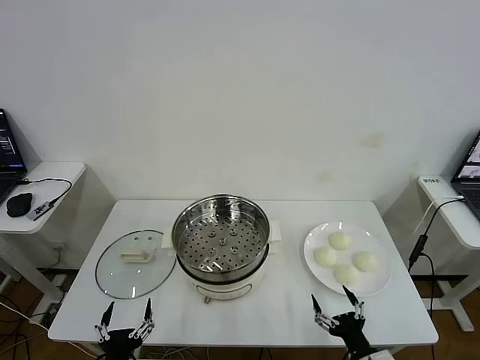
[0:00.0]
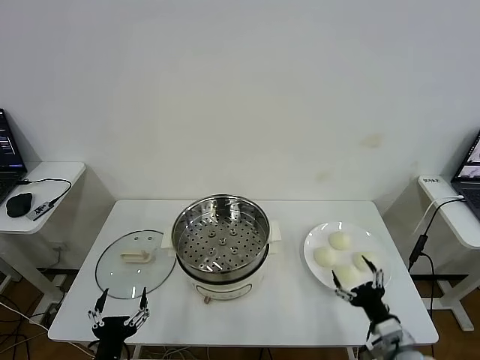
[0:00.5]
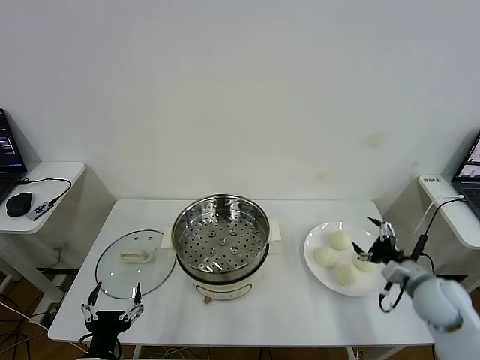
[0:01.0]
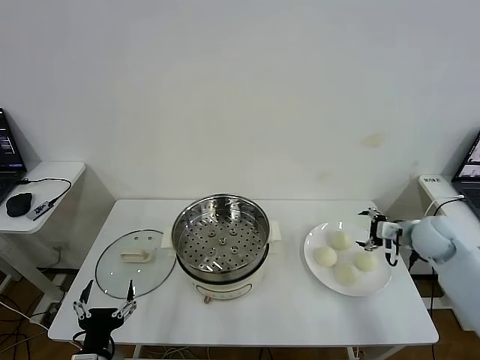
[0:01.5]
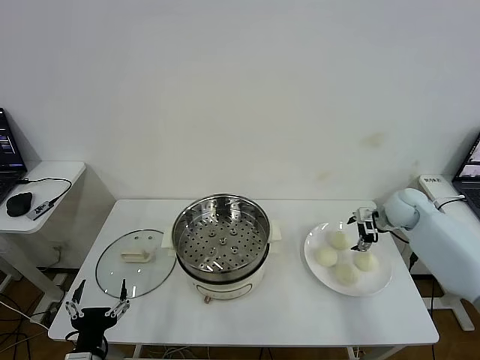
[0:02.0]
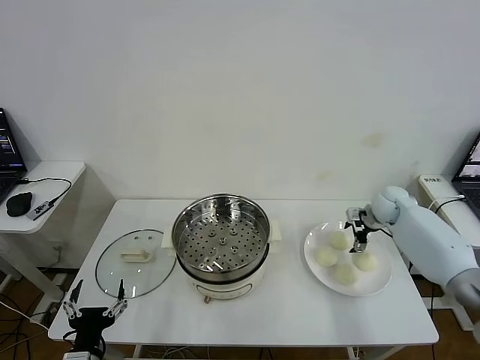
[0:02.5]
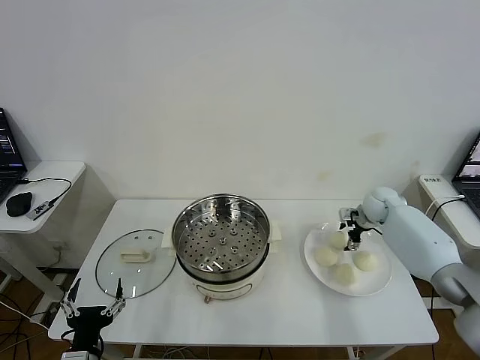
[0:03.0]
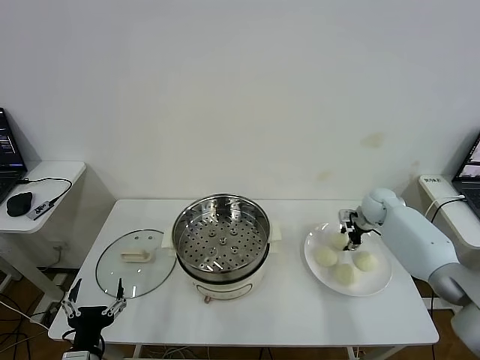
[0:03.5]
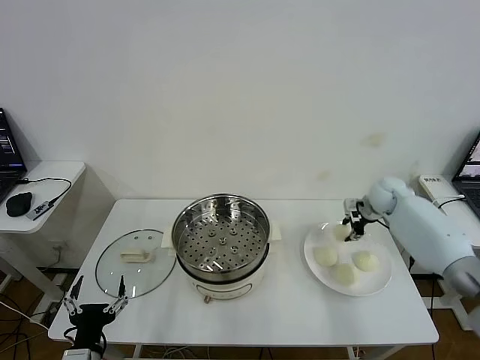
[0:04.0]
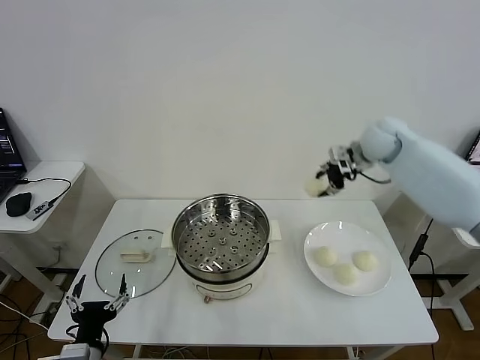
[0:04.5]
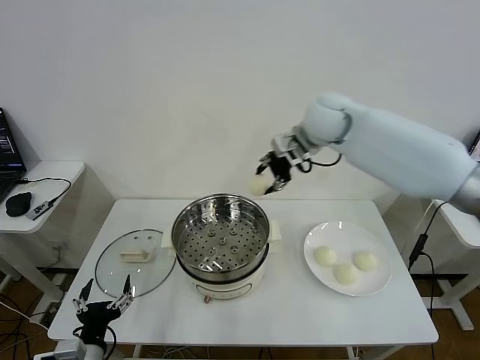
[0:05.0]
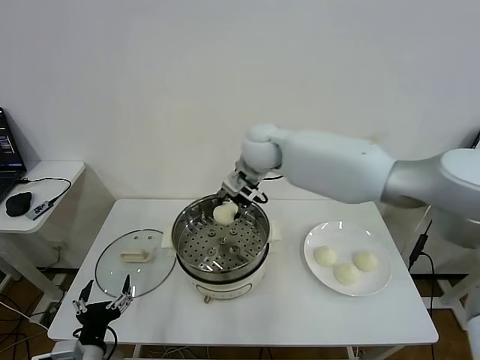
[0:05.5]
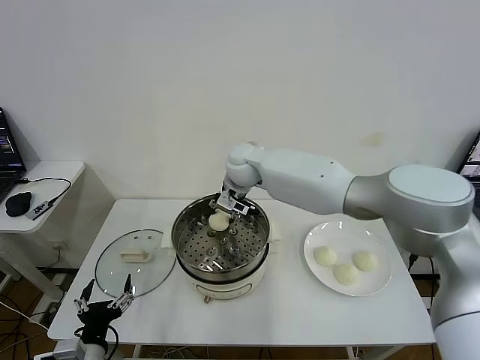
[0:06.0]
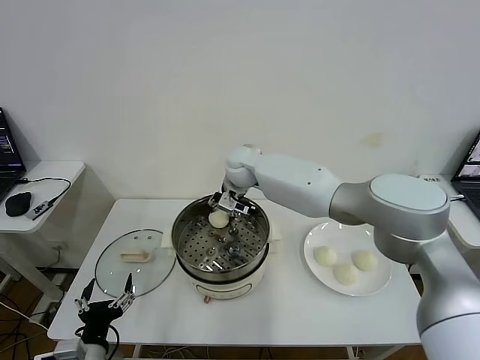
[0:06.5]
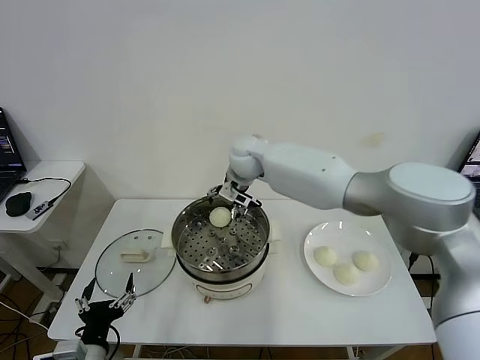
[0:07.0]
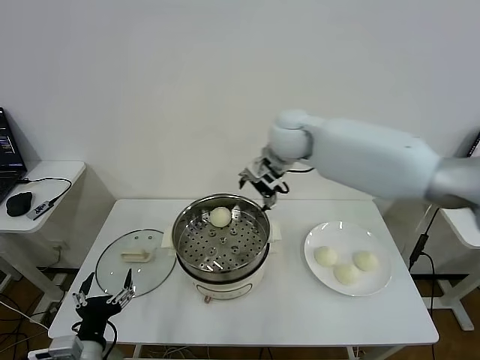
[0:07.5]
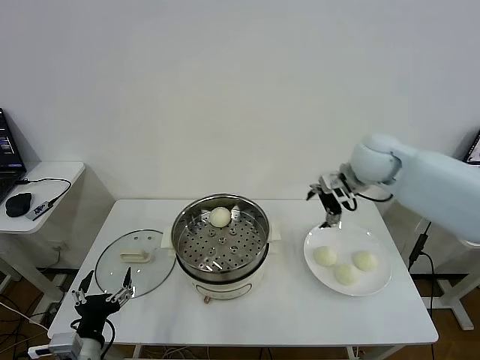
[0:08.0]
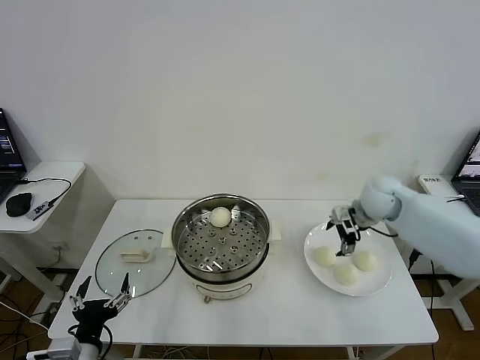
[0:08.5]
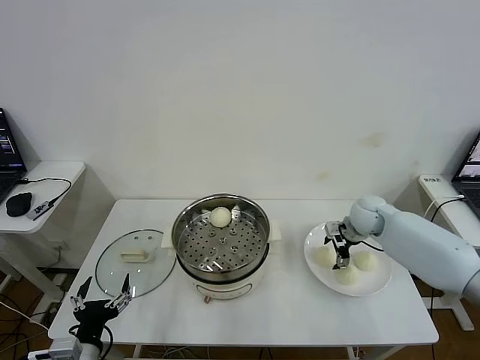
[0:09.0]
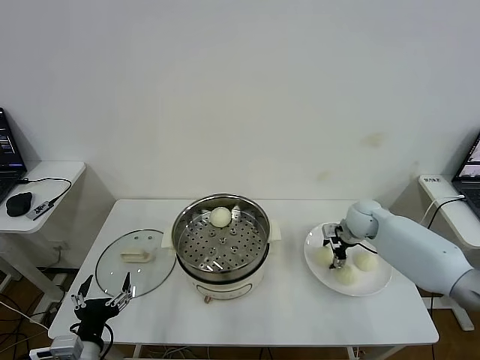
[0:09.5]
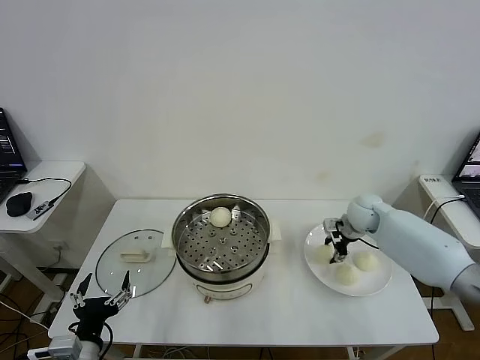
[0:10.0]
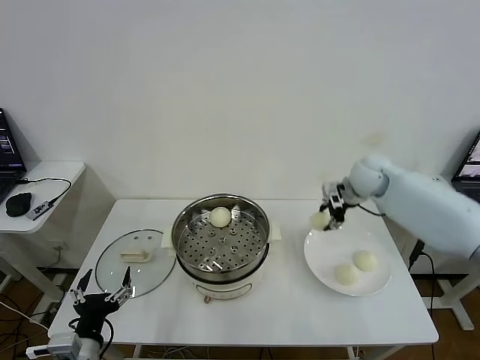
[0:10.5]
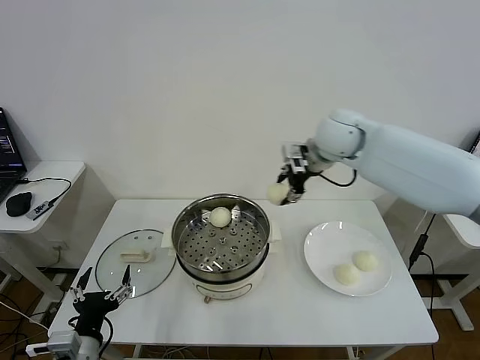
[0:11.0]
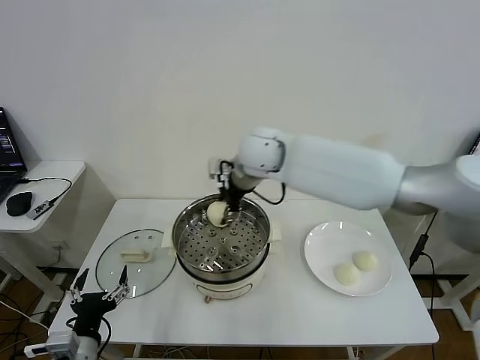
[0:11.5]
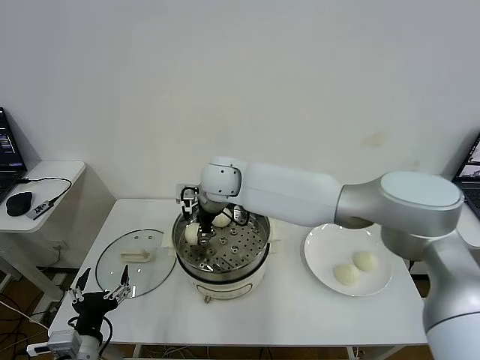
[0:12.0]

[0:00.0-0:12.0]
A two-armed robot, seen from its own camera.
Task of the whole recording: take steamed baozi put them in steamer then cover it.
Step, 0.0 to 3.5 s: Grasp the baozi in the plate with right gripper.
Step, 4.0 to 6.5 s: Place the baozi on the steamer with right gripper.
Step, 7.0 to 9.5 s: Grasp the baozi in the plate with right gripper.
2.0 to 4.0 s: The right gripper ends up roughly 5 cm from where it was, and closes its fingers.
4.0 to 6.0 s: The right gripper goes about 40 cm to the left.
6.0 to 8.0 s: The right gripper heads to the right, covering approximately 30 cm, and opens.
8.0 to 10.0 s: The right gripper moves downward, approximately 15 cm, and closes.
10.0 to 12.0 s: The right gripper shifts approximately 40 cm to the left.

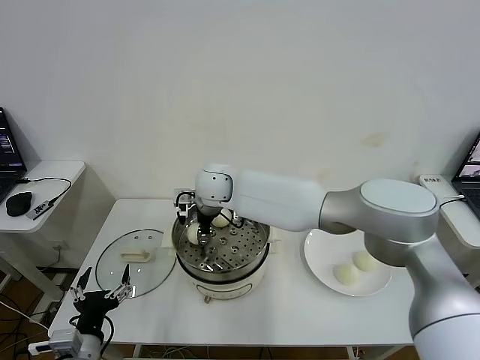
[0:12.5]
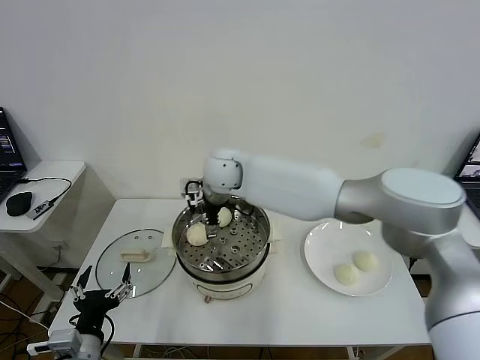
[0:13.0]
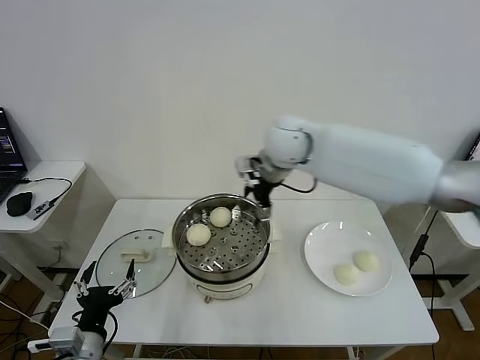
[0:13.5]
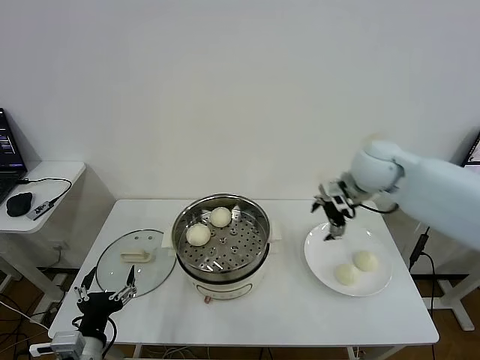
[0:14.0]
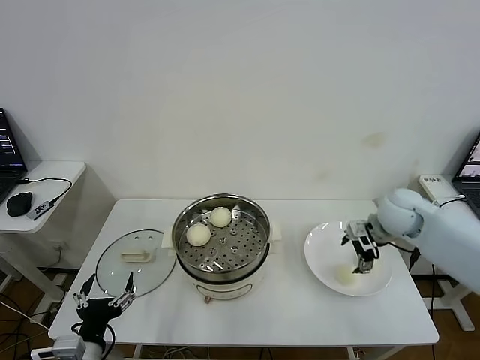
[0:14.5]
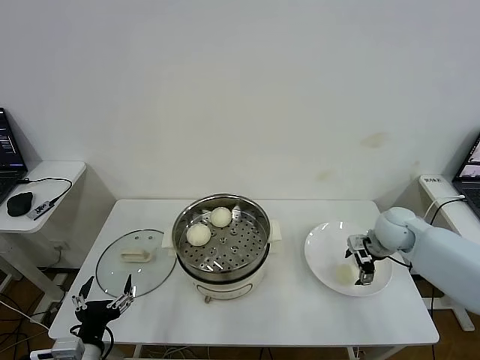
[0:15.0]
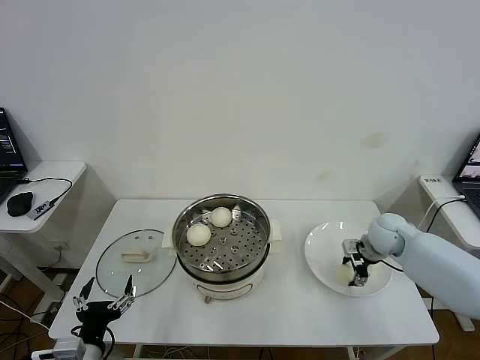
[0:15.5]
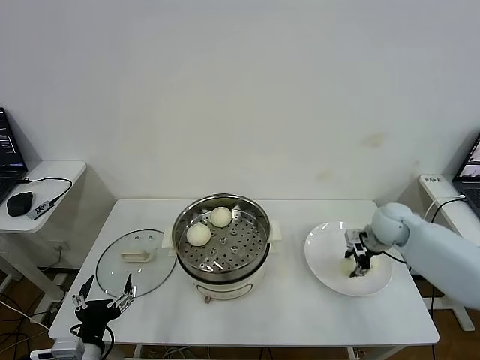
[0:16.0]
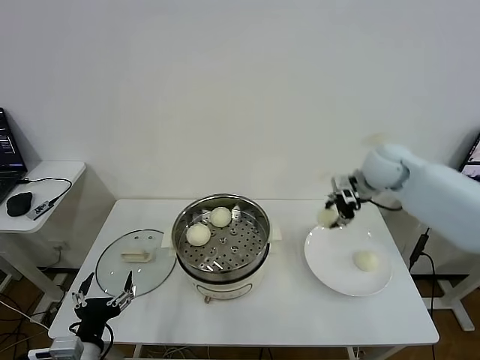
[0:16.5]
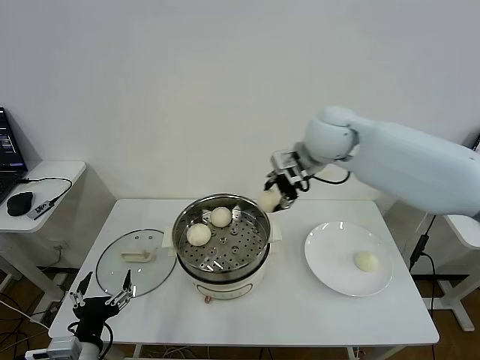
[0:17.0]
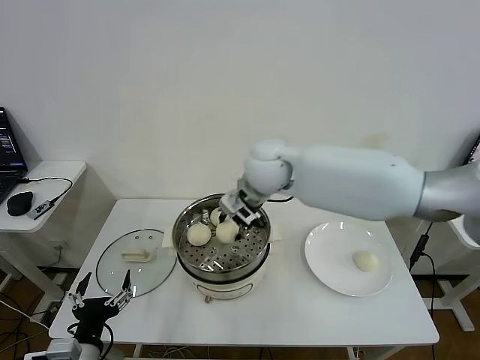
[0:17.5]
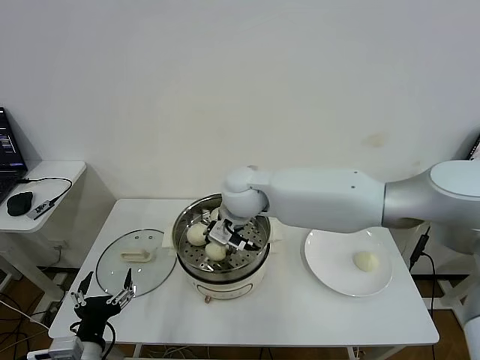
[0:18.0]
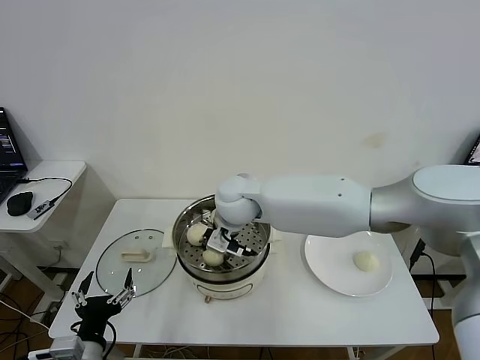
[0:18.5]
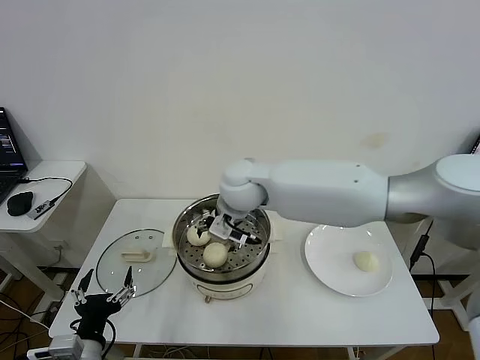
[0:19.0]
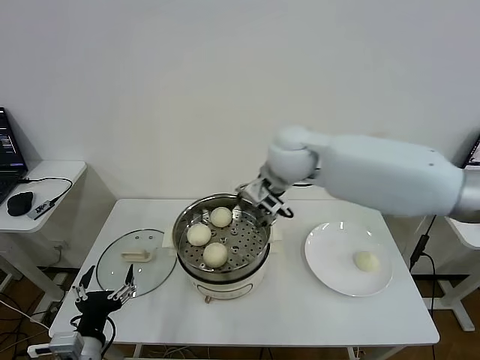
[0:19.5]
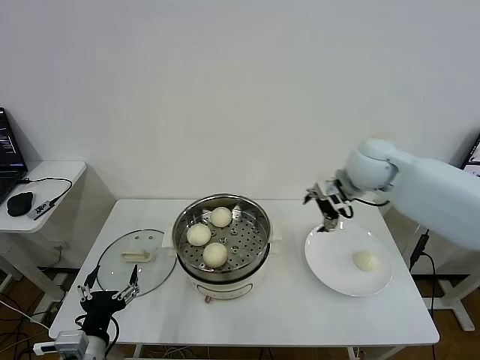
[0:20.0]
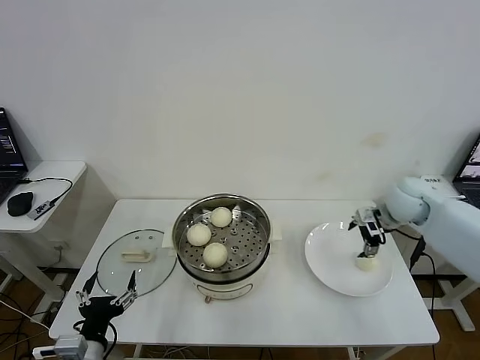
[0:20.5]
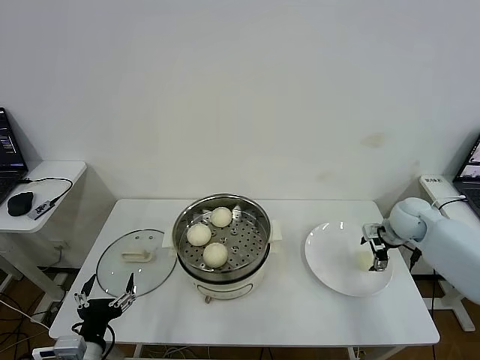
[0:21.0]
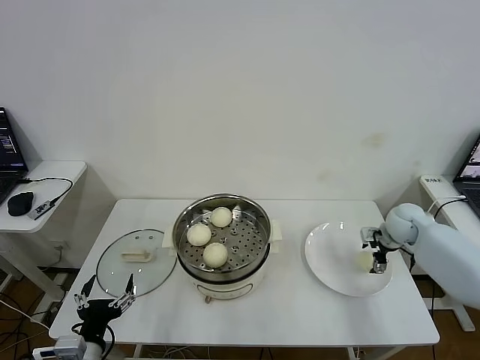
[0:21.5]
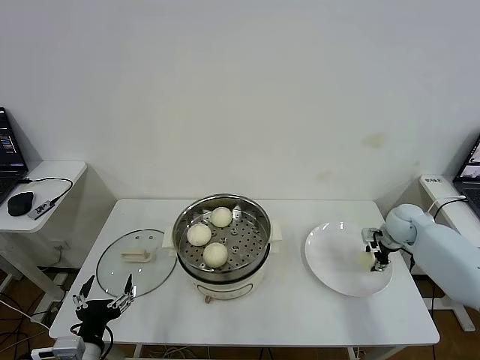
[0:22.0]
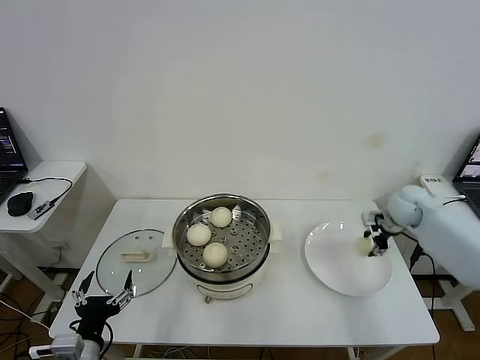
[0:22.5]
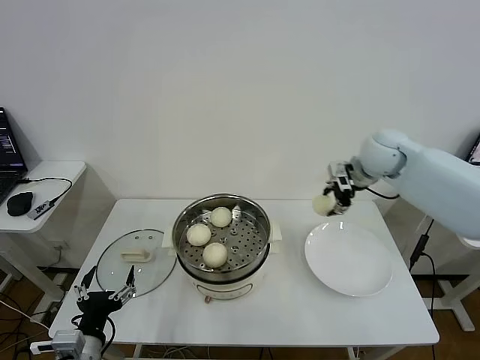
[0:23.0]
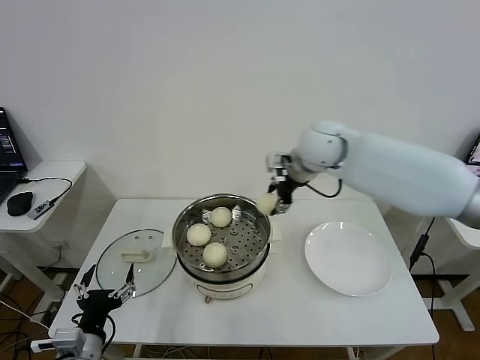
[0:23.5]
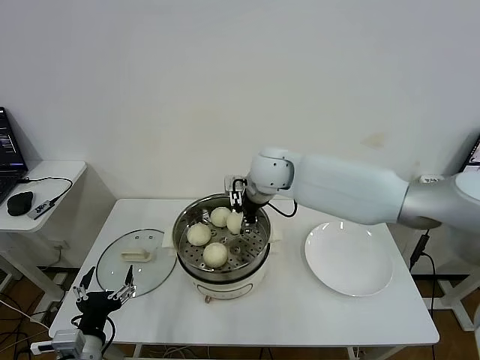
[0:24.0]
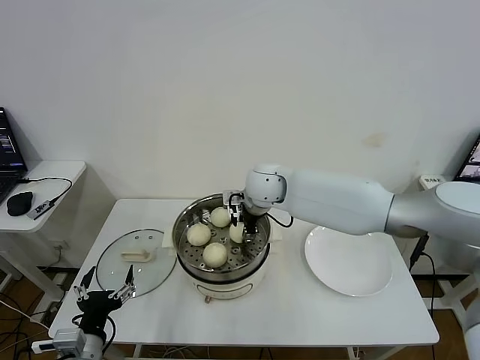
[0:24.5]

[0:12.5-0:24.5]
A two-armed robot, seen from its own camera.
Task of the whole recording: take steamed baozi put them in steamer then cover it.
Step, 13.0 to 15.5 s: Grasp the baozi in the plate with right gripper.
Step, 16.0 to 18.5 s: Place the baozi on the steamer with right gripper.
Step, 19.0 to 22.0 s: Grasp the baozi in the plate with right gripper.
12.5 to 14.5 s: The right gripper heads to the right, covering about 40 cm, and opens up.
14.5 to 16.5 s: The right gripper shifts about 15 cm upward, to the left and forward, and closes its fingers.
16.5 to 18.5 s: The right gripper travels to the left by roughly 30 cm.
18.5 to 20.5 s: The right gripper shifts roughly 40 cm to the right, and opens.
20.5 to 22.5 s: The right gripper moves some 10 cm downward and comes back, and closes up.
22.5 to 24.5 s: The right gripper goes about 35 cm to the left.

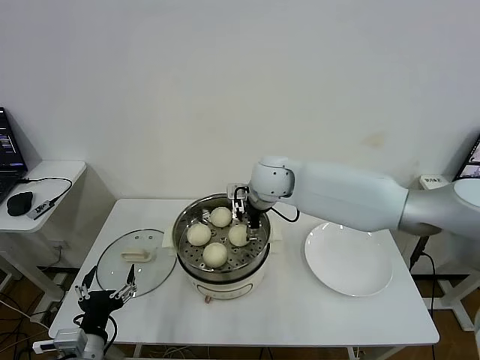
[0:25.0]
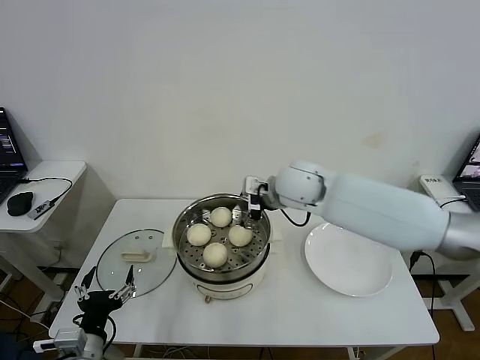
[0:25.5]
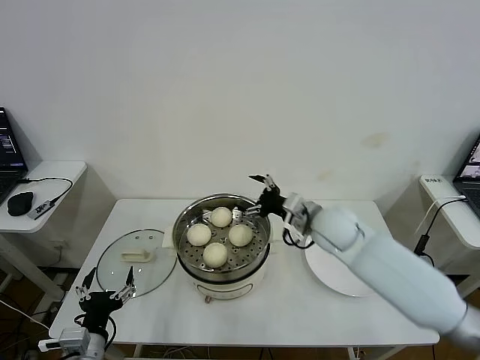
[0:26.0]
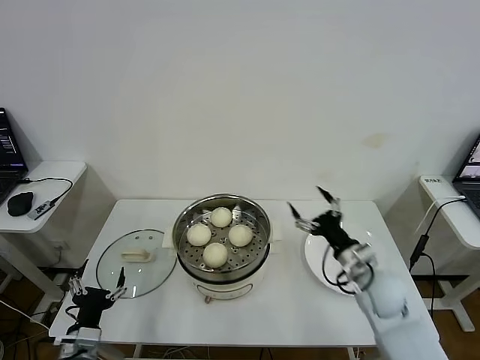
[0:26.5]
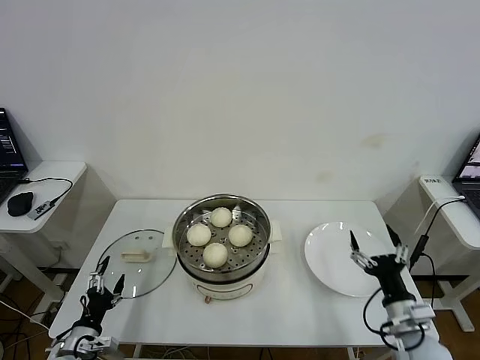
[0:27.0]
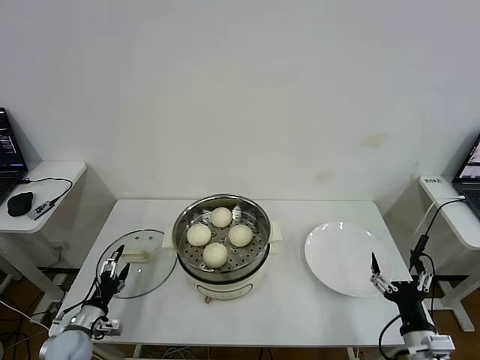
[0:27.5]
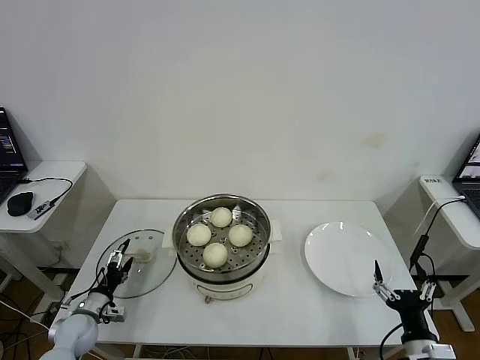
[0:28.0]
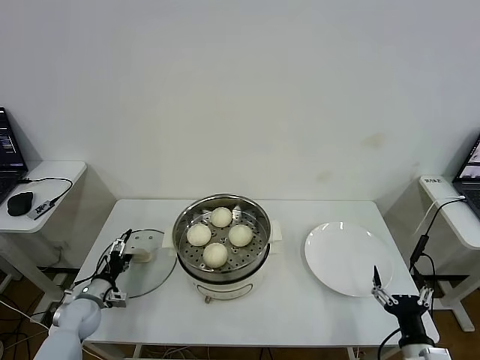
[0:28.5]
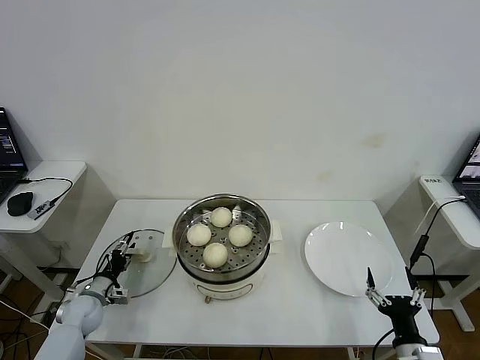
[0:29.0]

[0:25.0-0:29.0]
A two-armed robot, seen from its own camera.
Task of the whole recording: take steamed baozi put them in steamer then cover it.
25.0 to 27.0 s: The left gripper travels downward and to the left by about 15 cm. The right gripper goes approximately 50 cm backward, to the right and downward.
27.0 to 29.0 s: The right gripper heads backward, covering roughly 5 cm. The left gripper moves forward, roughly 15 cm.
